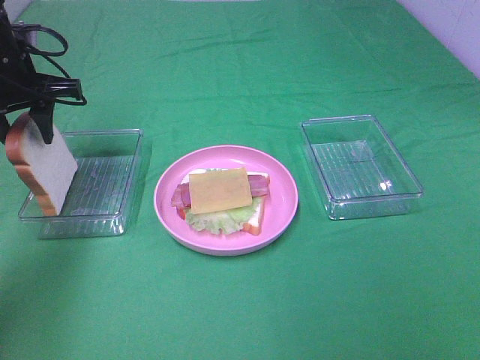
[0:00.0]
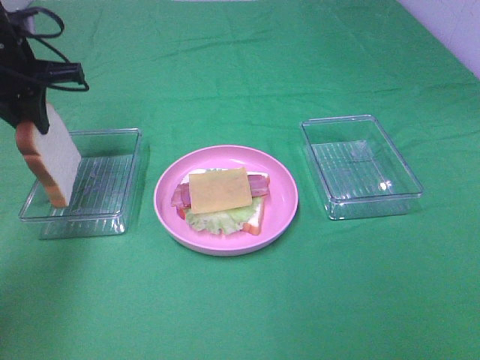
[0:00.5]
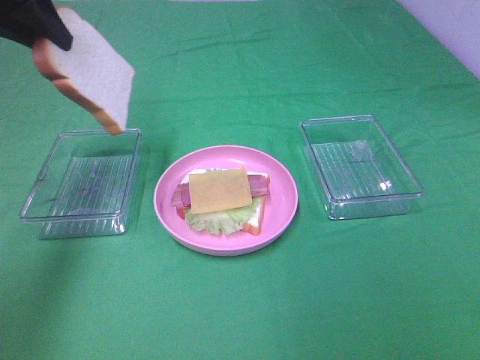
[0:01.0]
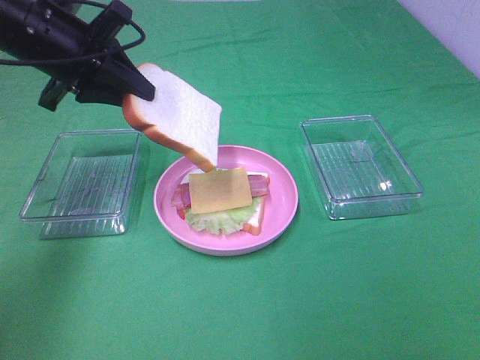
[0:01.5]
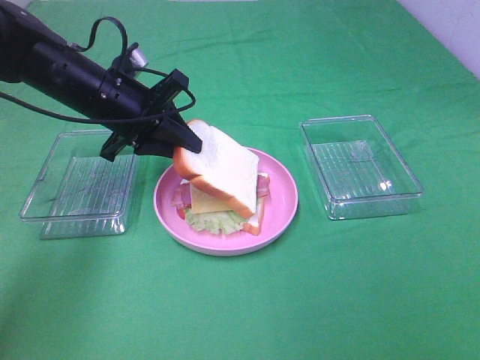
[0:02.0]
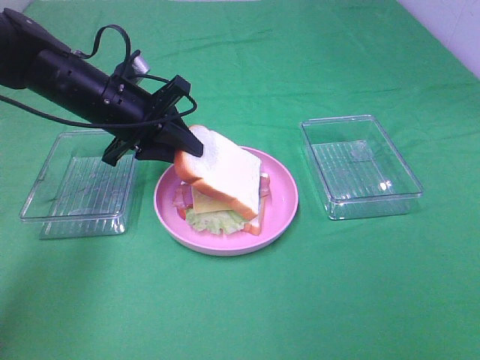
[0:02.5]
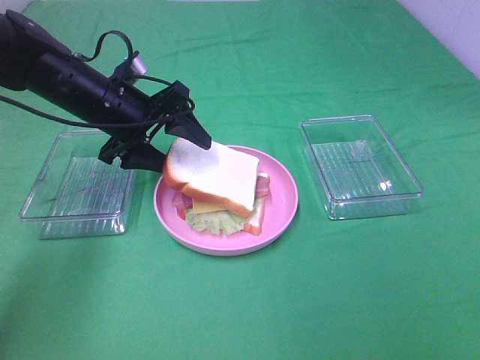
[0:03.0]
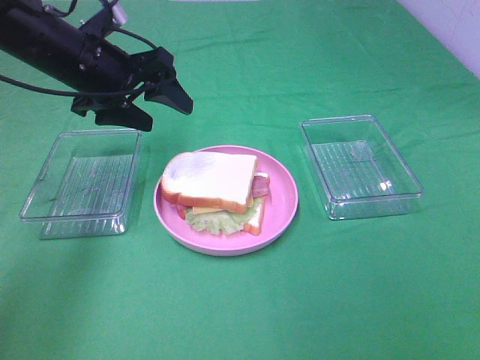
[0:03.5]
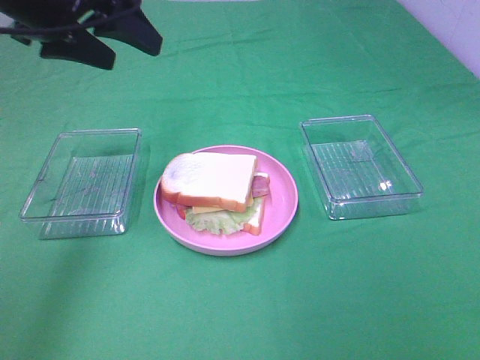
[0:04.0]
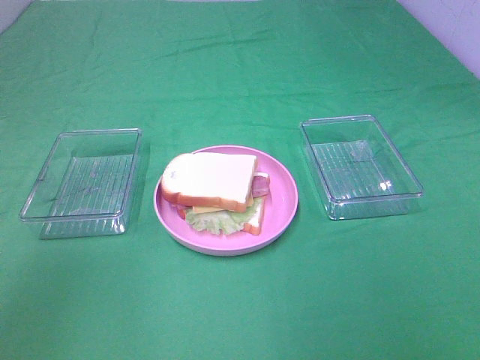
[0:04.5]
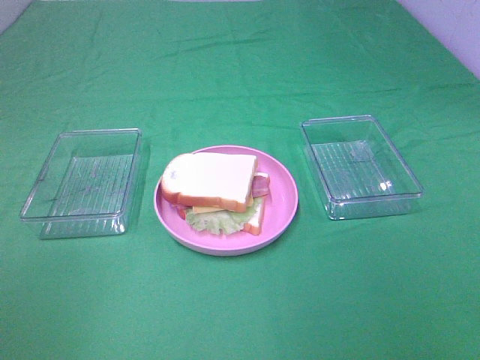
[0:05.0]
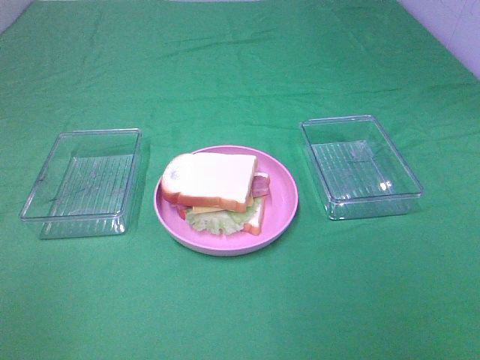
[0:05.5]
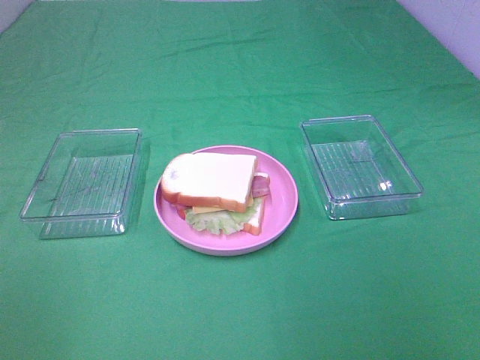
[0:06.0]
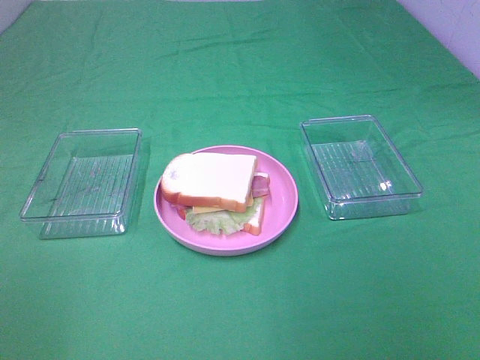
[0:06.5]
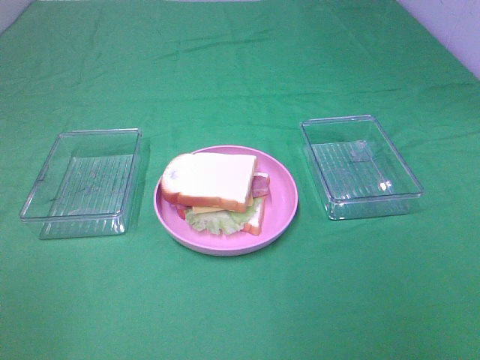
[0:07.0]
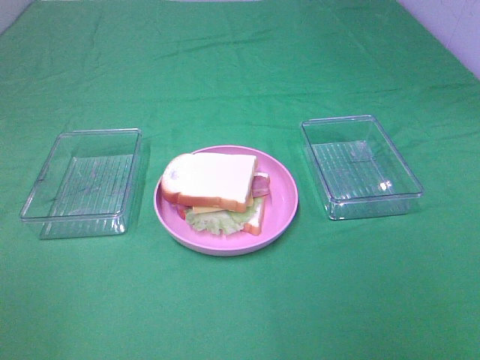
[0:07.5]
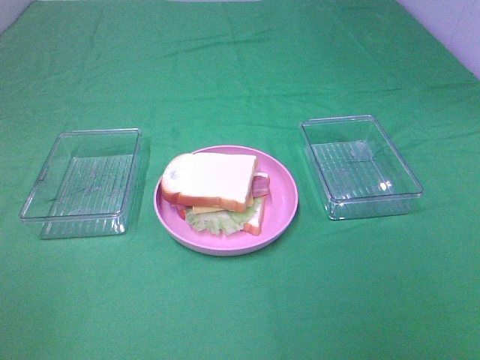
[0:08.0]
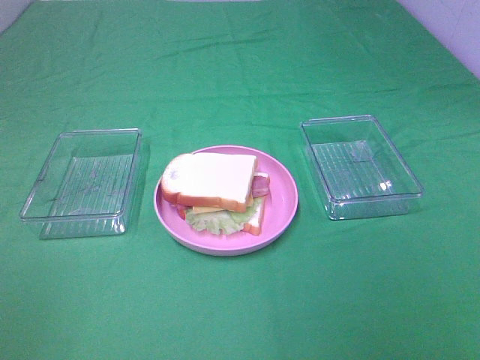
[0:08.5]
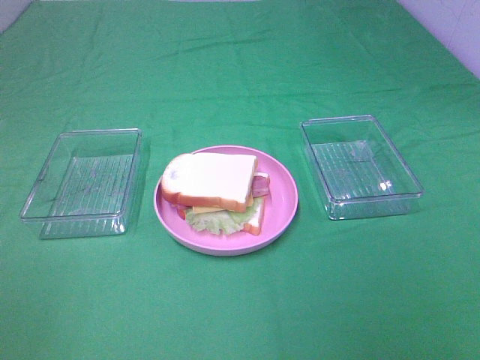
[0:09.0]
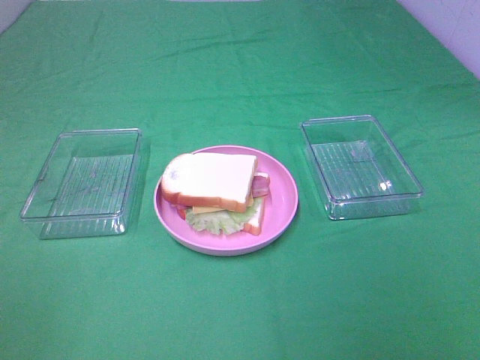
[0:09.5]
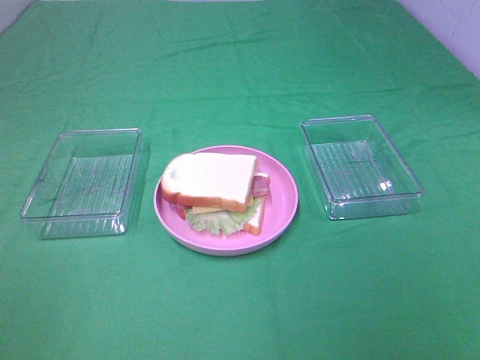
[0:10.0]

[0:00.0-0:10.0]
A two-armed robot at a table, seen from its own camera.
Task of the whole recording: Make sandwiches.
Step, 0:00.5 to 0:03.5: Left hand:place the bread slice on the cheese slice.
0:00.0 to 0:02.0: The left gripper heads to the right, covering roughly 10 cm, travels upward and back again, approximately 10 cm each way, and closes up.
0:02.0 to 0:04.0: The left gripper moves upward, roughly 15 cm, and opens up.
0:04.0 to 0:06.0: The left gripper shifts about 35 cm backward.
0:08.0 to 0:10.0: Both grippers stay about where they are.

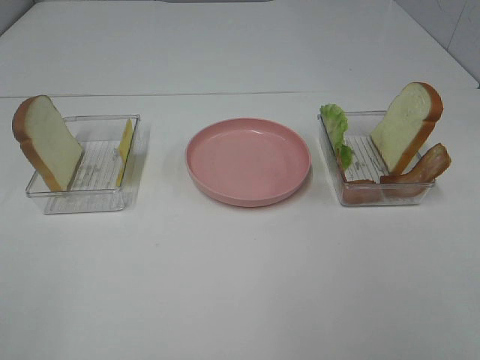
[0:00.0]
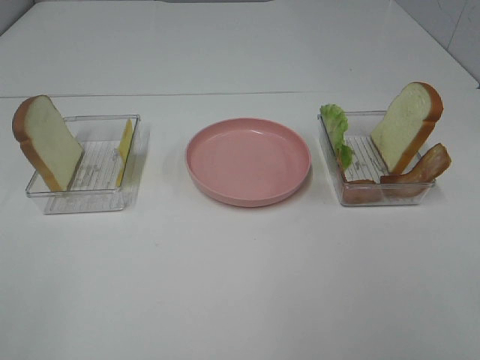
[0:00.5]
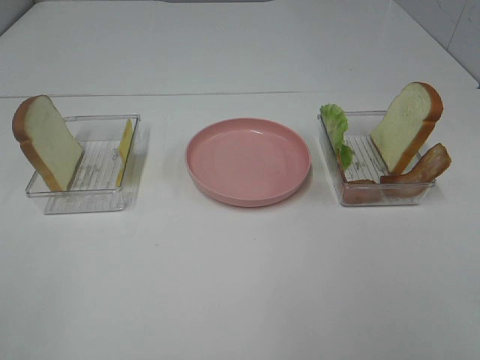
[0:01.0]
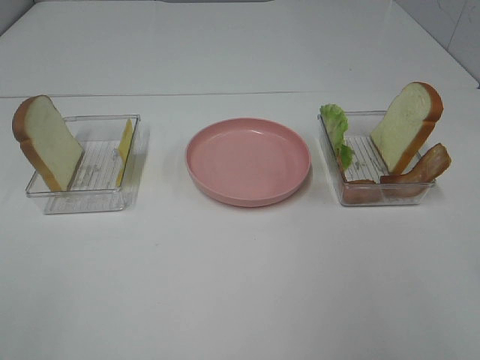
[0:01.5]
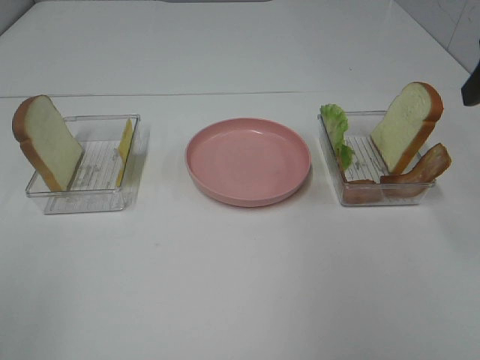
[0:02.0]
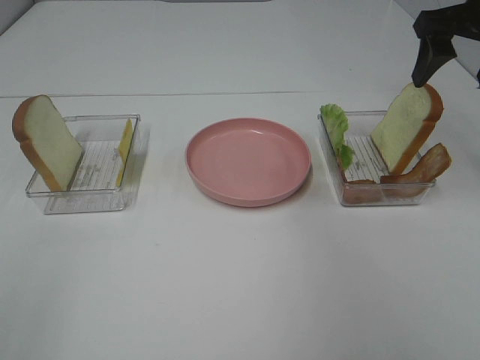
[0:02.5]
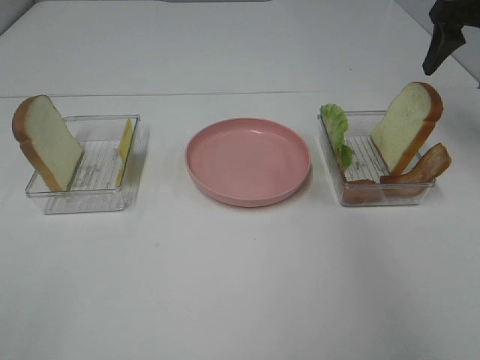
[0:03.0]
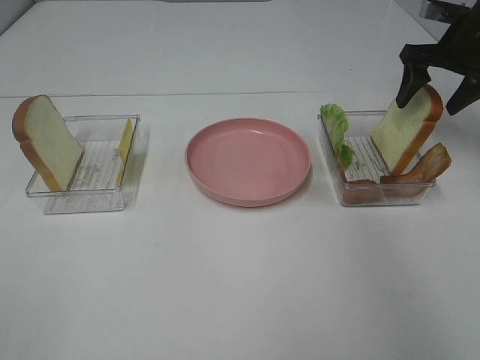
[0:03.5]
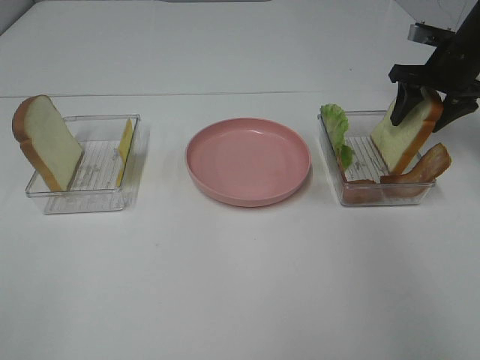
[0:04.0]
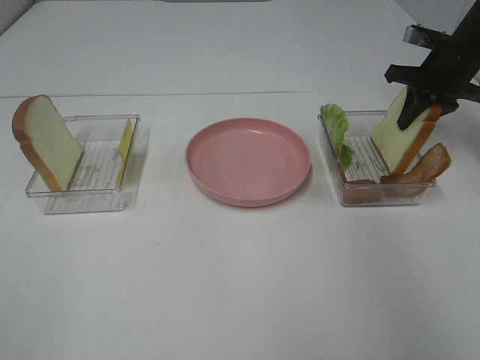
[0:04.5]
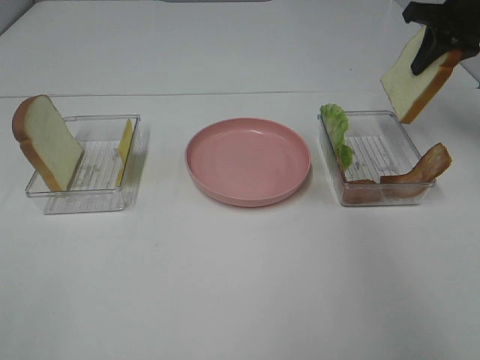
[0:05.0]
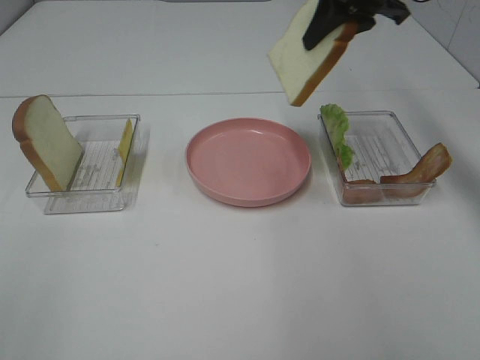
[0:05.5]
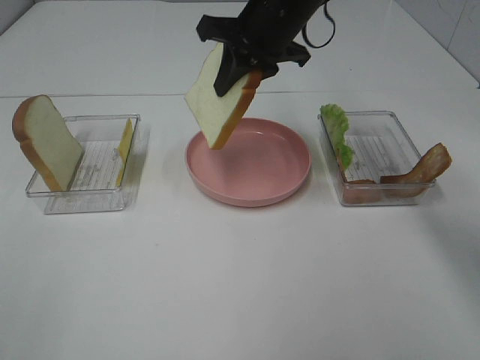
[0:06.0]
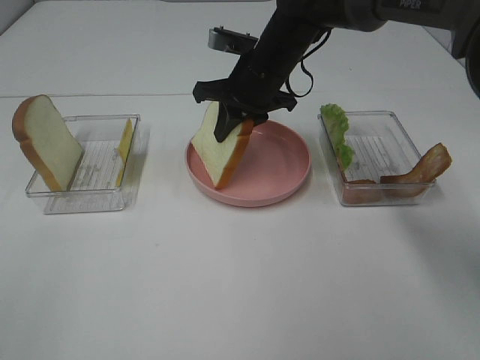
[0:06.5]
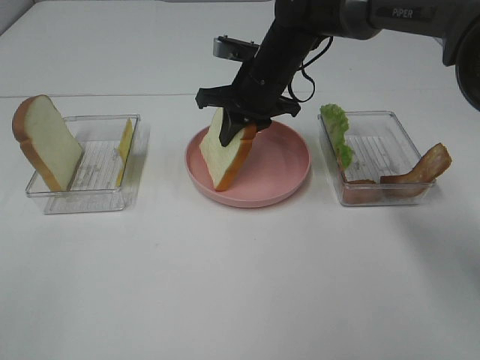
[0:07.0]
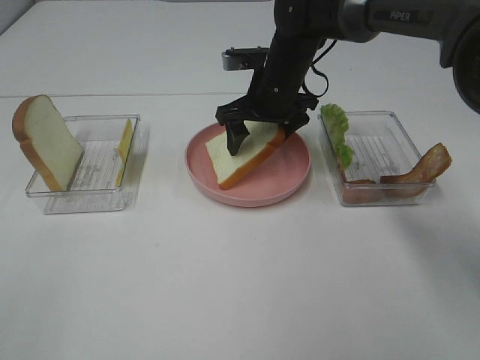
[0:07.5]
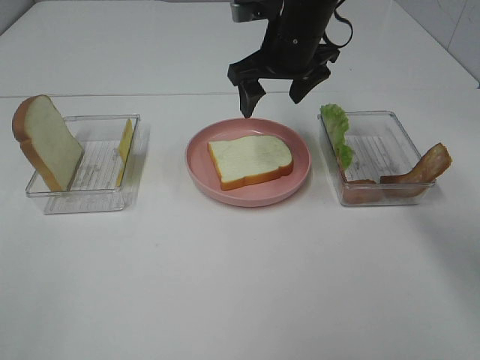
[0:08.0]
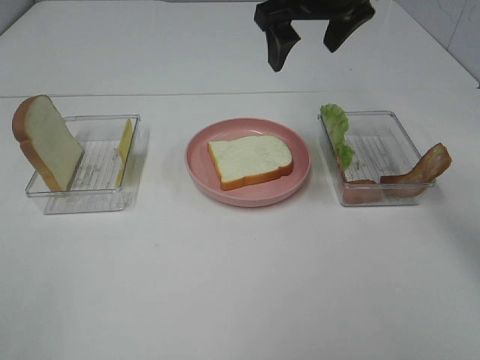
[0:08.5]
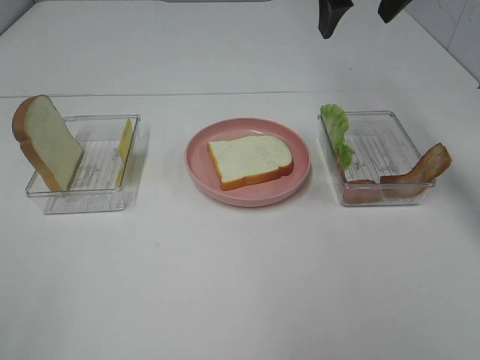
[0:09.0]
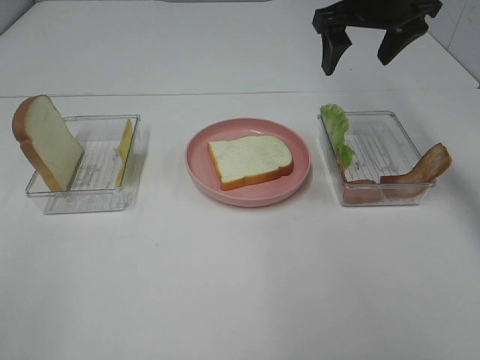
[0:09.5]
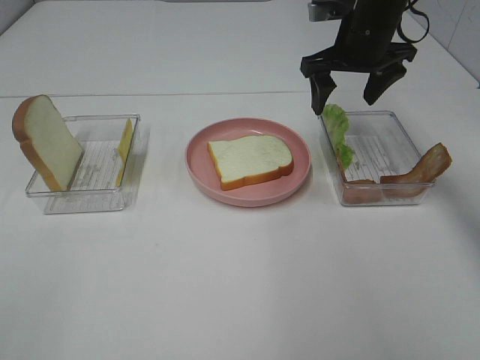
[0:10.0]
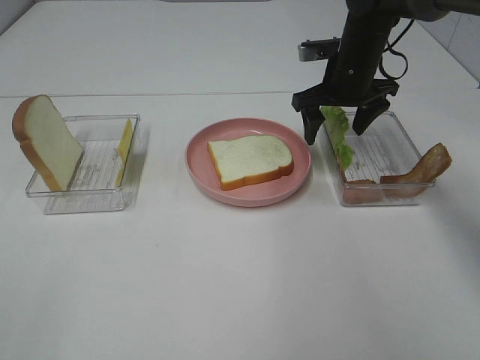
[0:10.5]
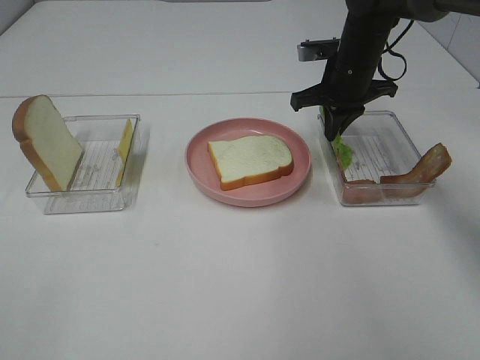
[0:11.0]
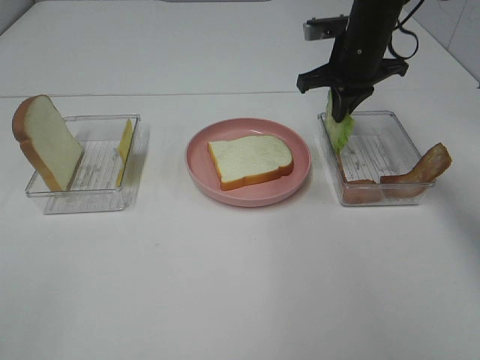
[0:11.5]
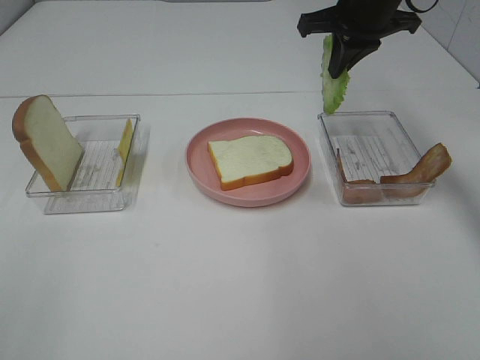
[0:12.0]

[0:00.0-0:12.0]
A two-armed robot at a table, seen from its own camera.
Task of the whole recording: Make sandwiches.
Step, 0:00.0 to 0:04.0: Right hand:grab the bread slice.
Step, 0:04.5 to 0:08.0: Right hand:place the bread slice on the plate.
Step, 0:08.5 to 0:11.0: Right hand:grab the lettuce slice.
0:02.0 to 0:04.0: The right gripper goes about 25 cm forward and downward.
0:04.0 to 0:06.0: The right gripper heads to the left, covering about 25 cm, and closes.
0:06.0 to 0:08.0: The right gripper travels downward and back again, some 10 cm each way, and opens its fingers.
0:08.0 to 0:10.0: The right gripper goes some 10 cm to the right, and reaches some 10 cm upward, then returns.
0:10.0 to 0:12.0: The right gripper moves upward, some 5 cm, and closes up.

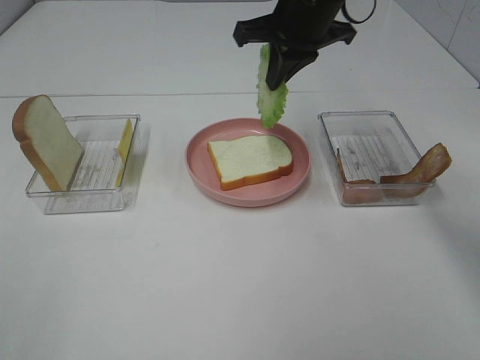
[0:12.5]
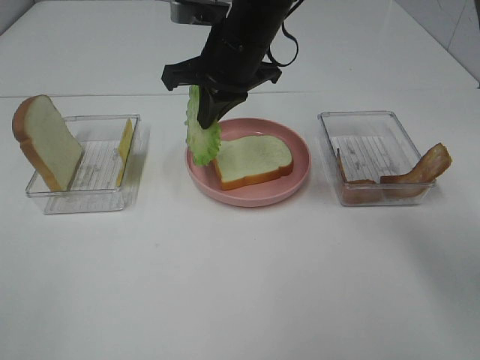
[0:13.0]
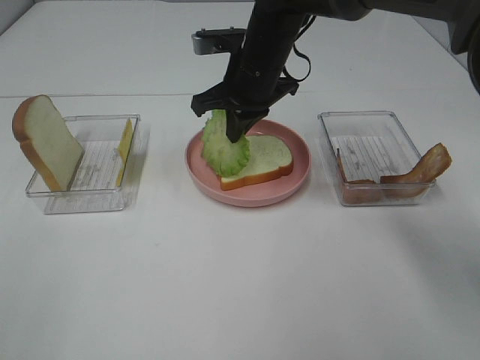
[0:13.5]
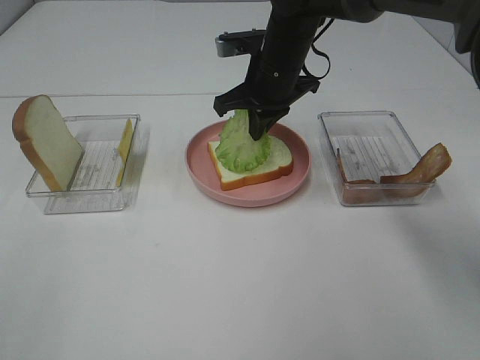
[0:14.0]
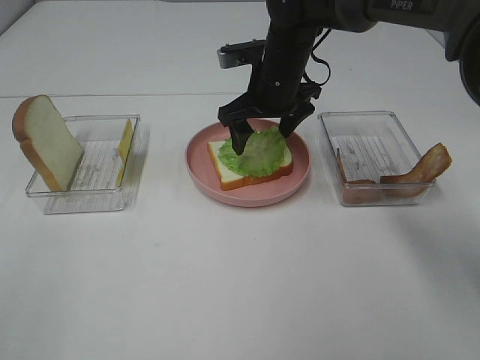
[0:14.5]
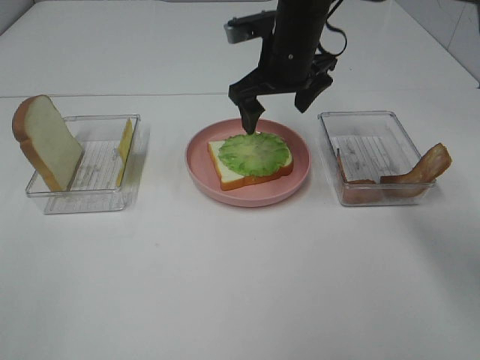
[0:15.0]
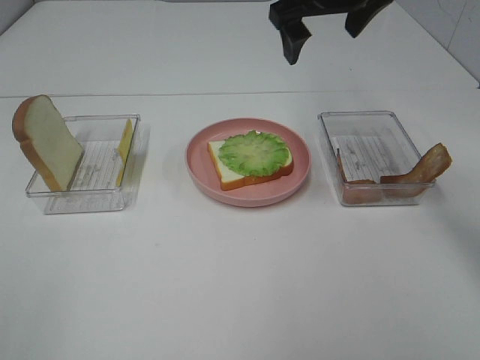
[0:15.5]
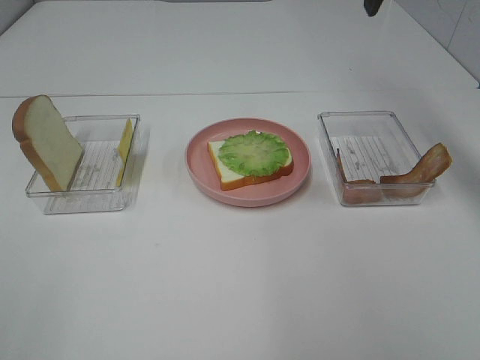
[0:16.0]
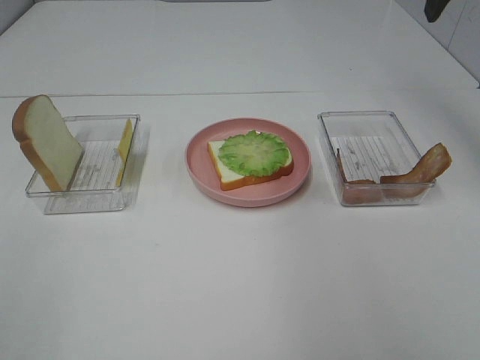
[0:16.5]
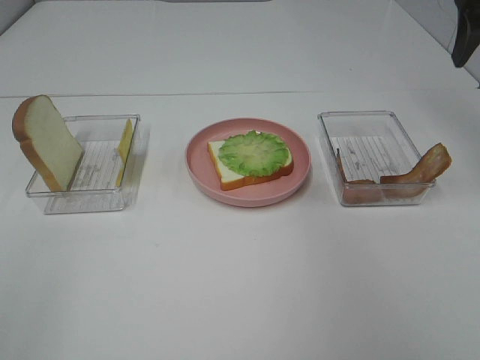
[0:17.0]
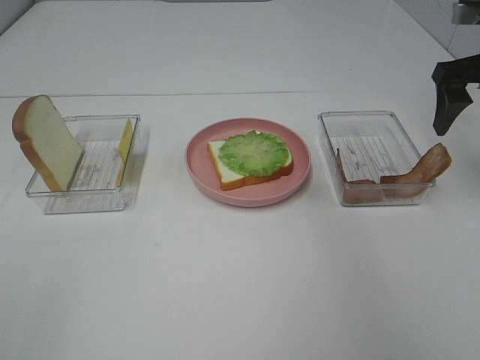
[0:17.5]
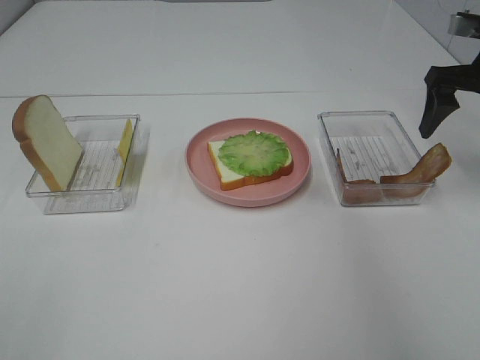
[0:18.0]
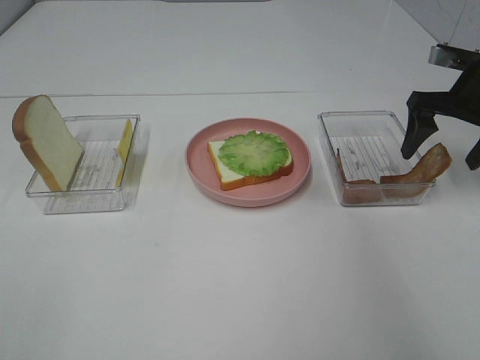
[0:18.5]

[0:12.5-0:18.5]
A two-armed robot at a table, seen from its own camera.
Task of the whole recording: Make sandwiches.
Step, 0:12.5 to 0:14.5: Right hand:place the lettuce slice on the bread slice.
0:12.5 to 0:14.5: The right gripper moves downward, roughly 10 cm, and opens up.
0:14.5 to 0:16.5: The right gripper is displaced to the right and upward by about 30 cm.
0:16.5 to 0:18.5: The right gripper shifts approximately 20 cm downward.
